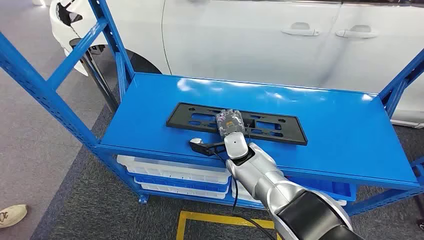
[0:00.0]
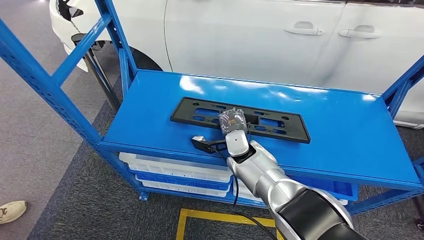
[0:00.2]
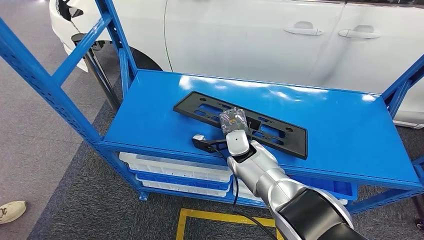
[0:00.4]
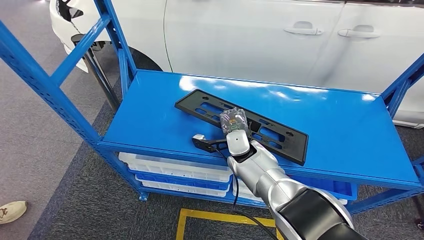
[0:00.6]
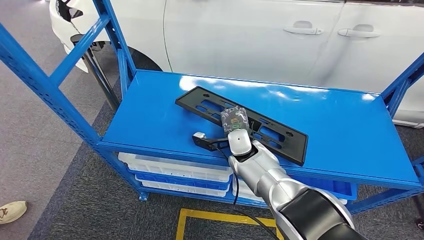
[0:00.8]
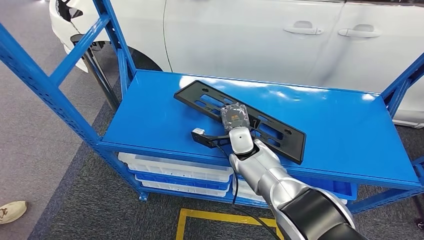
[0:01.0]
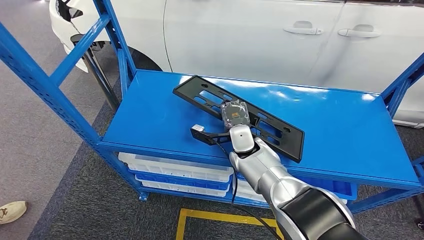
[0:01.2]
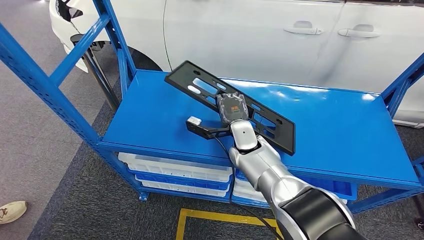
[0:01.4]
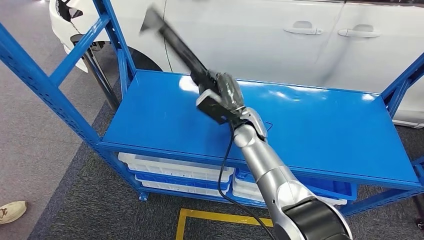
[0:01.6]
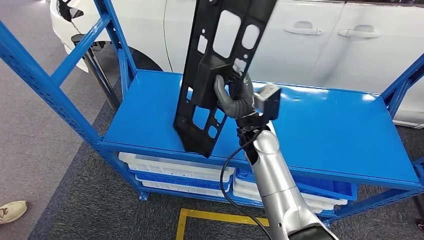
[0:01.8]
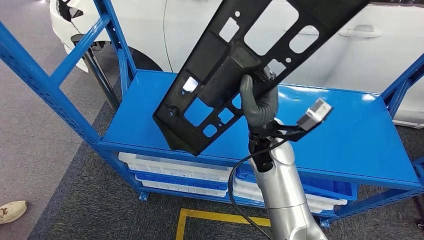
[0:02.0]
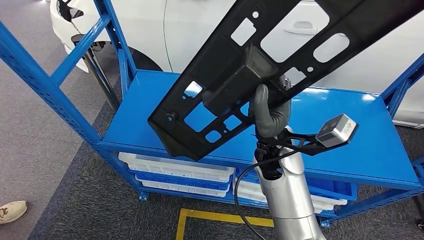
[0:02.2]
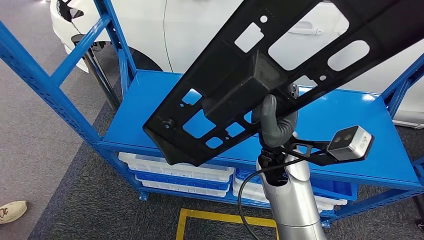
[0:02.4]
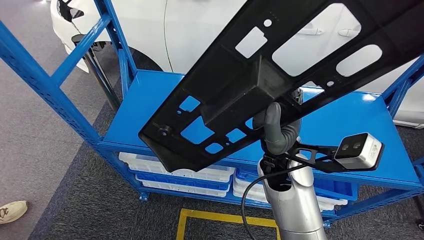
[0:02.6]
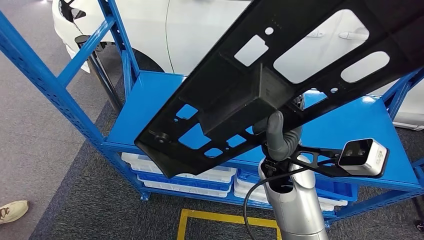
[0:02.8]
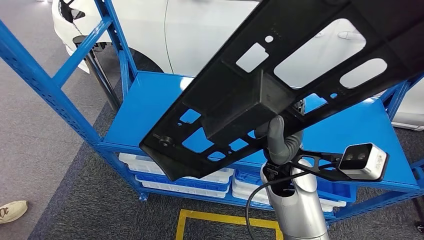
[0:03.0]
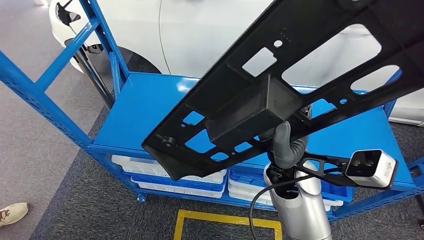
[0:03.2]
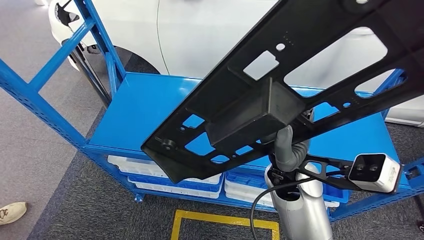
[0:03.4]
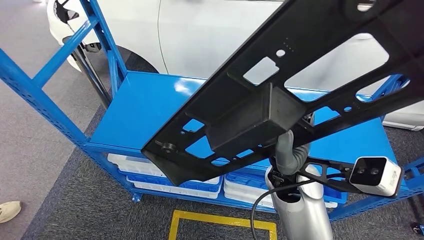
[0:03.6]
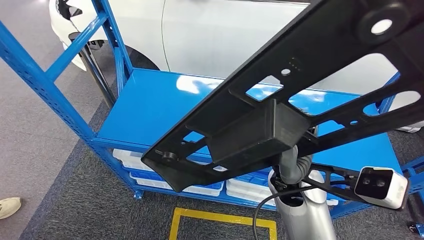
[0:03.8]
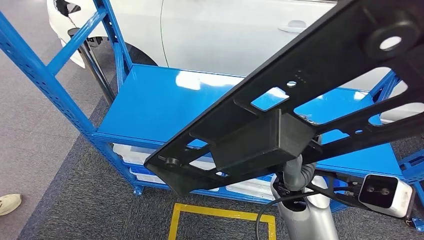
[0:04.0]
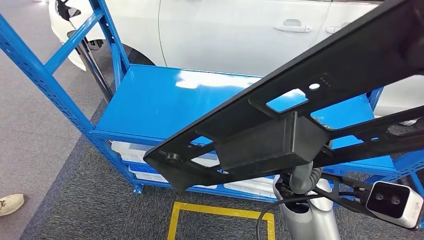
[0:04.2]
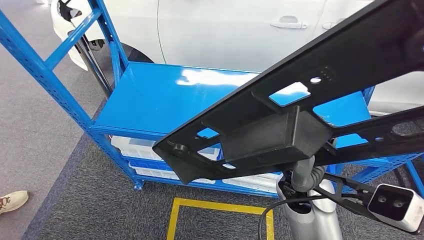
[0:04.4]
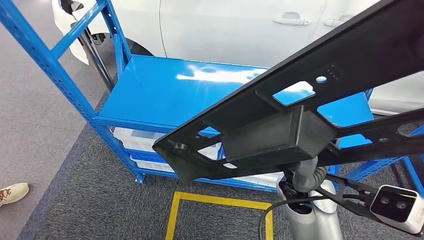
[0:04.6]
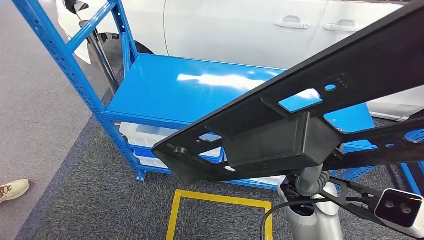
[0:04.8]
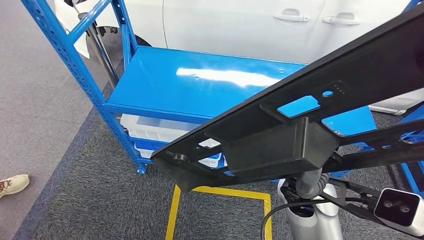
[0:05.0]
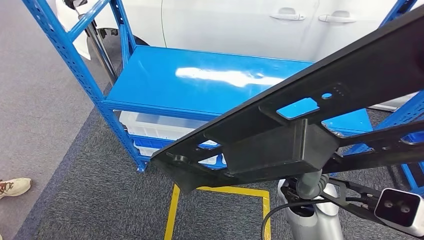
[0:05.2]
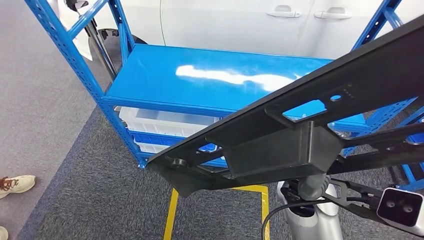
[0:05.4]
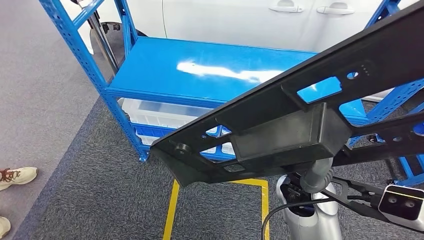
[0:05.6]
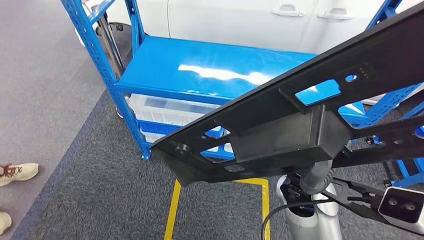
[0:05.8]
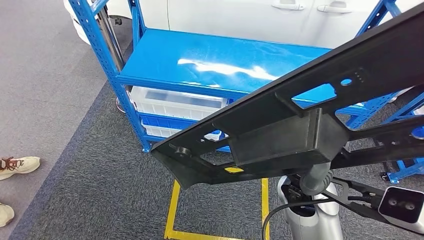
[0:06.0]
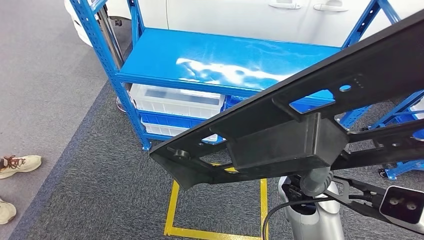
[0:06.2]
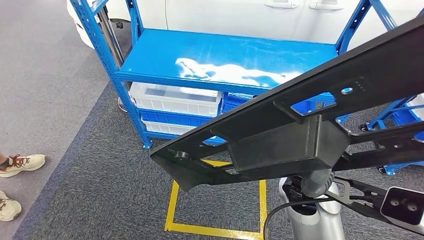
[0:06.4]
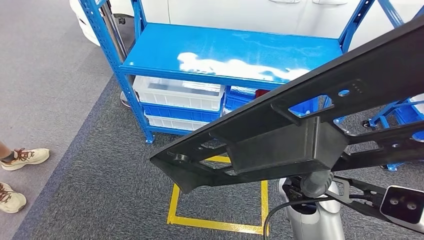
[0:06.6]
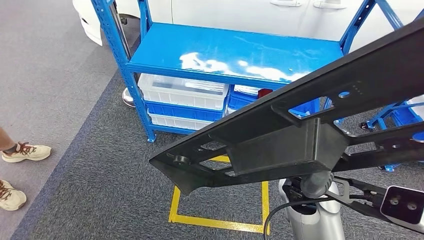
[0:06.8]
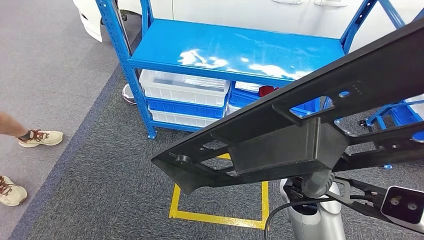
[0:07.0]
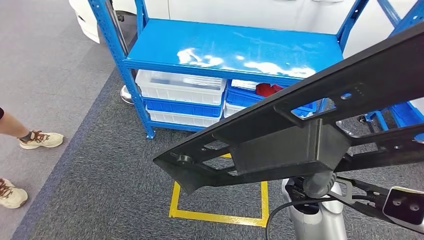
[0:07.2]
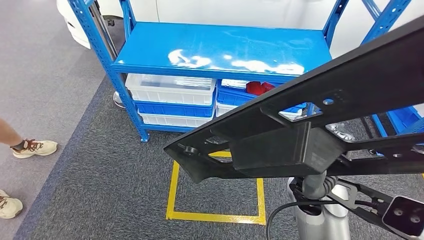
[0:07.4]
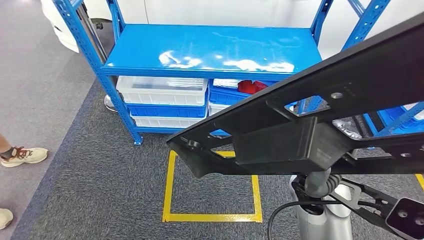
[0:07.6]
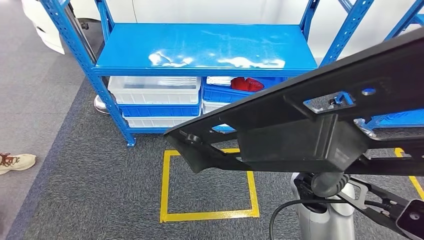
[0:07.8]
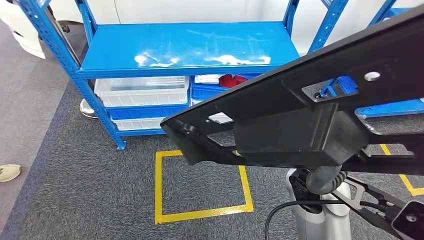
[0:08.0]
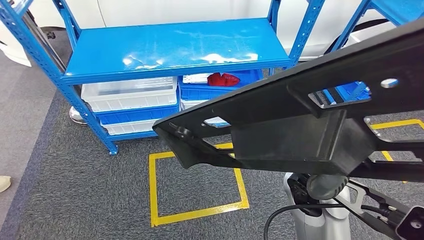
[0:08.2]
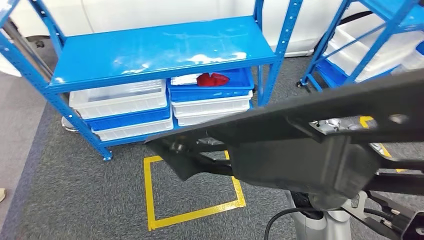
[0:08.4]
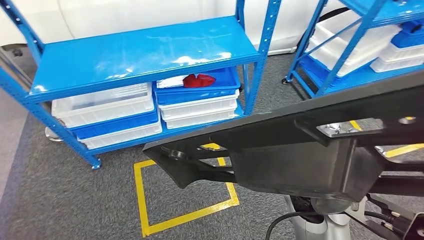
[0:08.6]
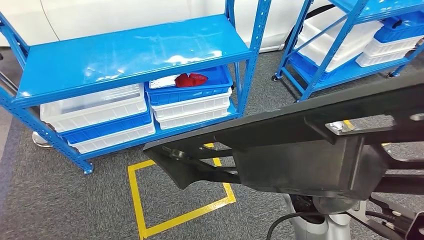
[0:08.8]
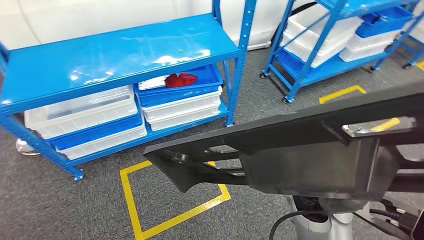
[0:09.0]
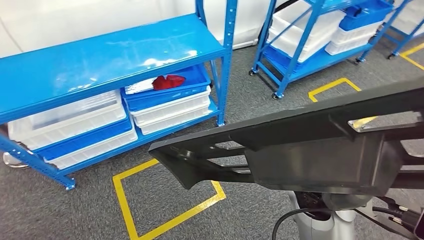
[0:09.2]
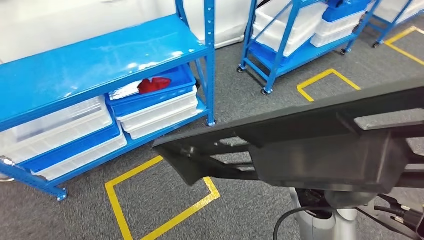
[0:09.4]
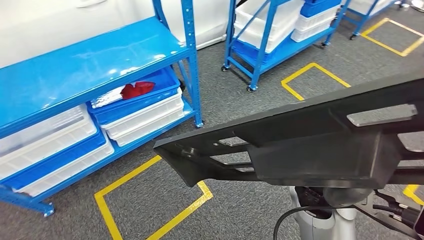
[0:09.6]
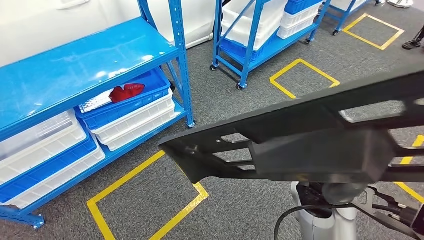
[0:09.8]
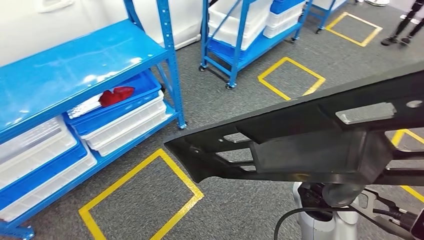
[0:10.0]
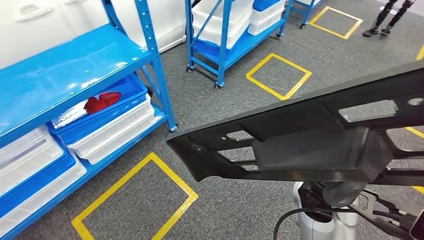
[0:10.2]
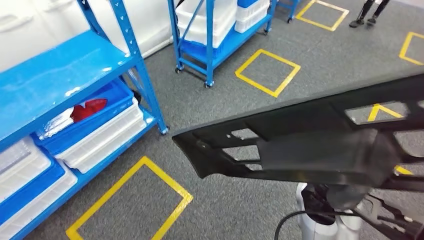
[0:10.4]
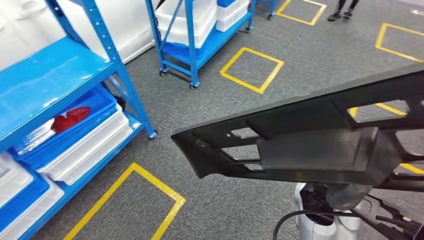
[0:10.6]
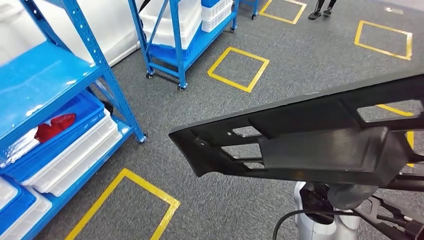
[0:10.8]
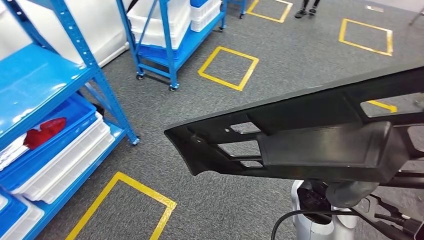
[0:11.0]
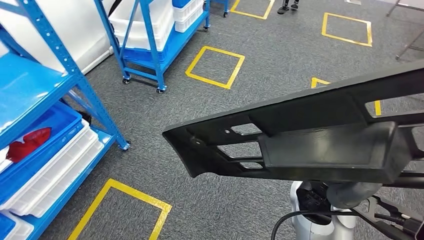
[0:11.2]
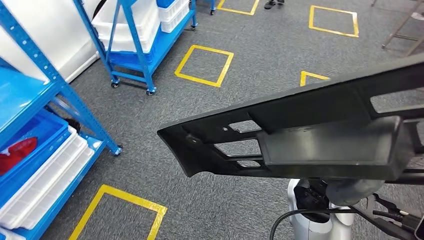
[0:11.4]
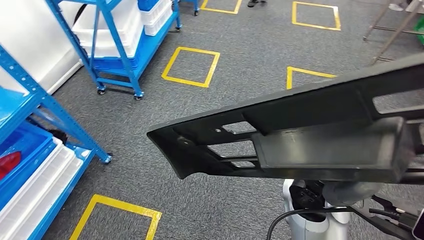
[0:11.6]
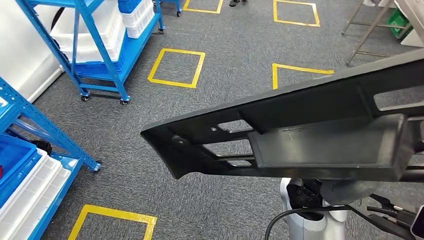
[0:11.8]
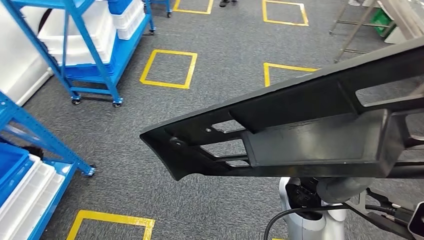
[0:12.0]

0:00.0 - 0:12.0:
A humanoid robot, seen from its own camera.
Step, 0:00.0 - 0:03.2: Pick up the large material from the shelf.

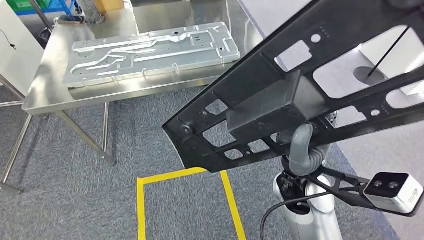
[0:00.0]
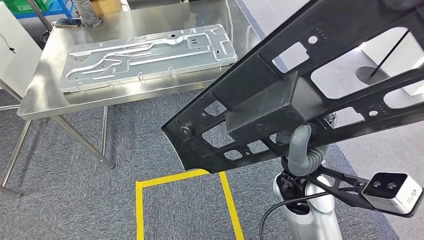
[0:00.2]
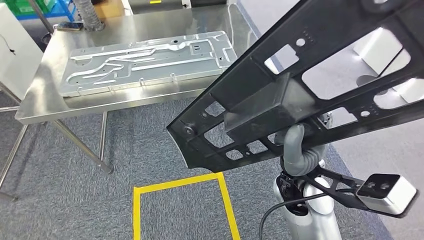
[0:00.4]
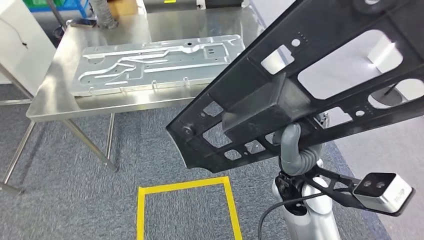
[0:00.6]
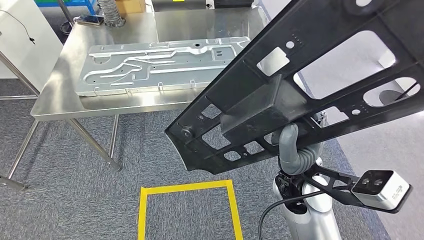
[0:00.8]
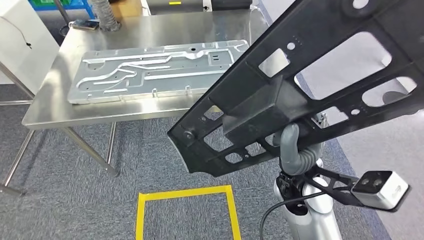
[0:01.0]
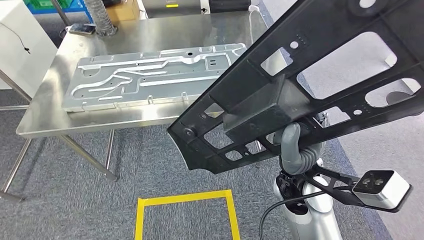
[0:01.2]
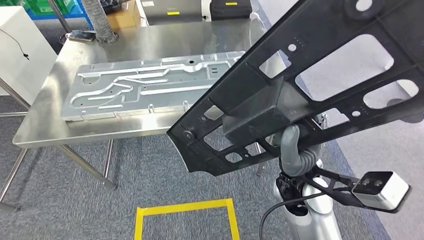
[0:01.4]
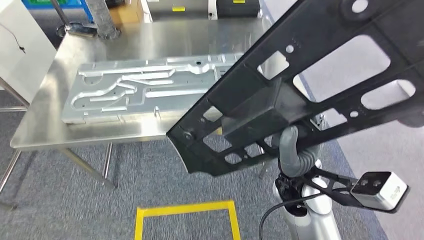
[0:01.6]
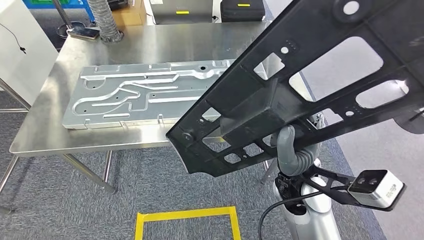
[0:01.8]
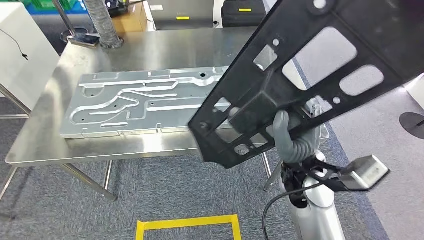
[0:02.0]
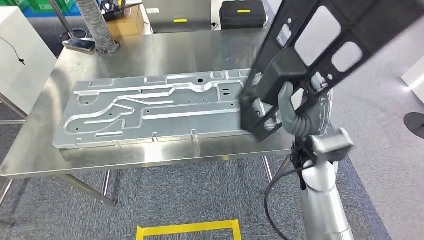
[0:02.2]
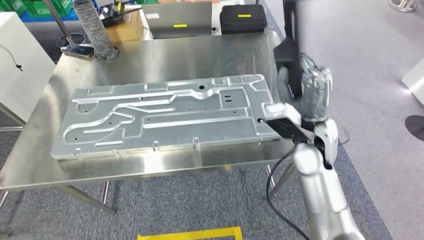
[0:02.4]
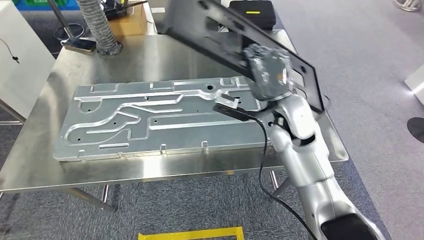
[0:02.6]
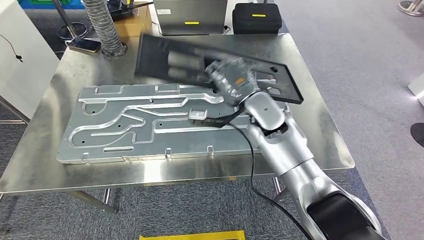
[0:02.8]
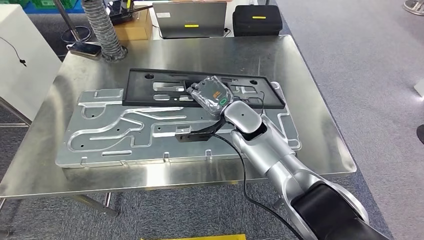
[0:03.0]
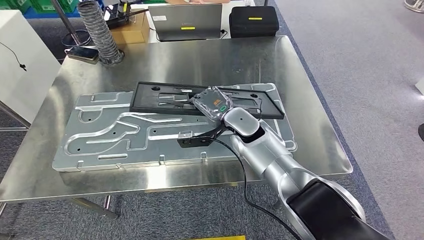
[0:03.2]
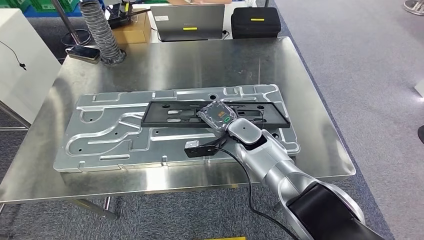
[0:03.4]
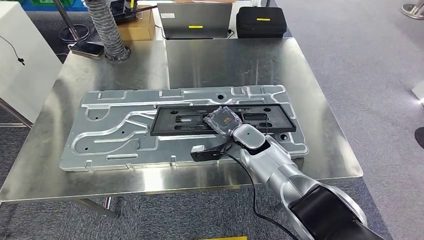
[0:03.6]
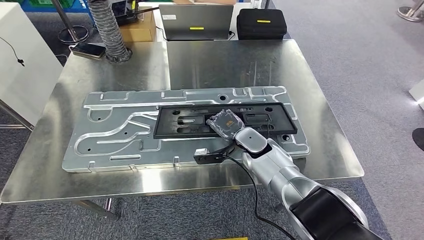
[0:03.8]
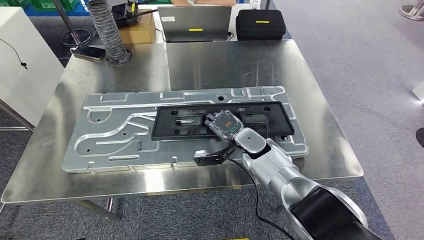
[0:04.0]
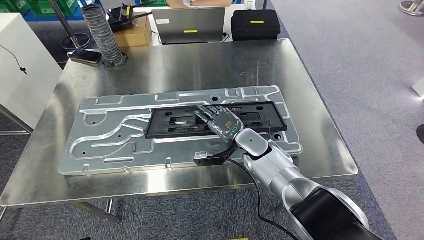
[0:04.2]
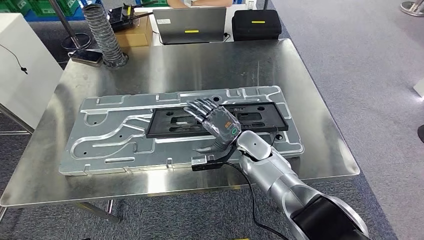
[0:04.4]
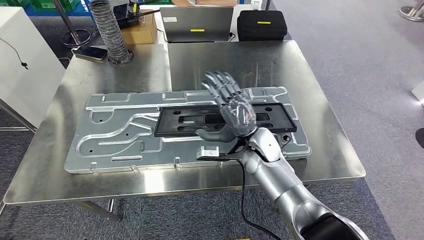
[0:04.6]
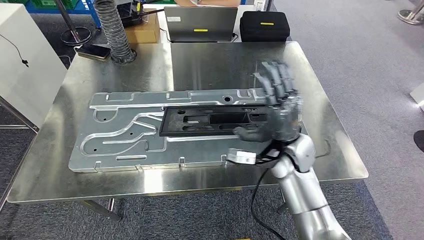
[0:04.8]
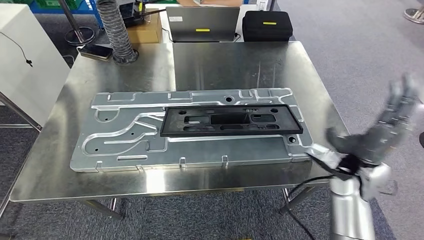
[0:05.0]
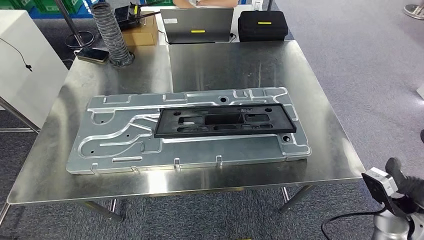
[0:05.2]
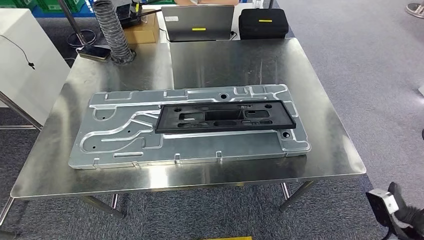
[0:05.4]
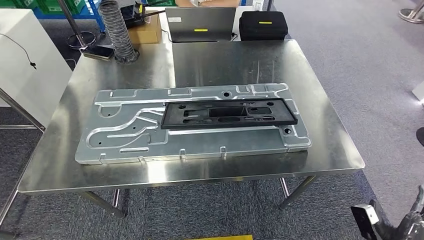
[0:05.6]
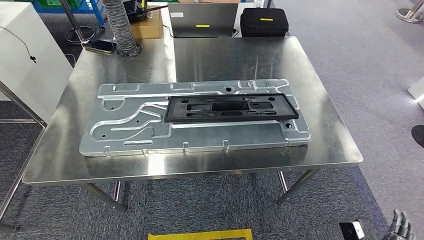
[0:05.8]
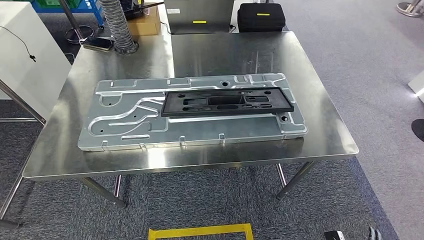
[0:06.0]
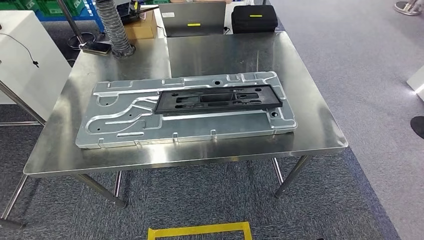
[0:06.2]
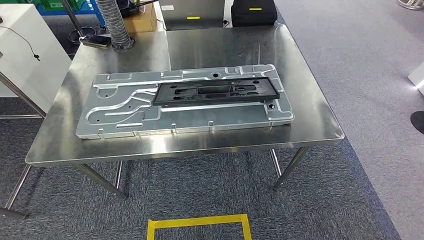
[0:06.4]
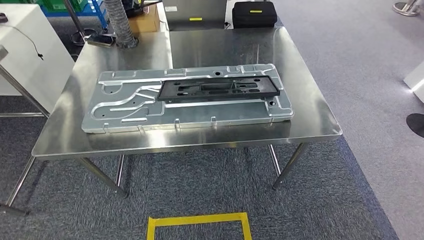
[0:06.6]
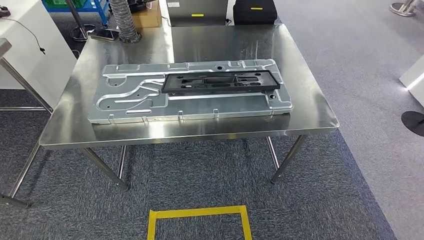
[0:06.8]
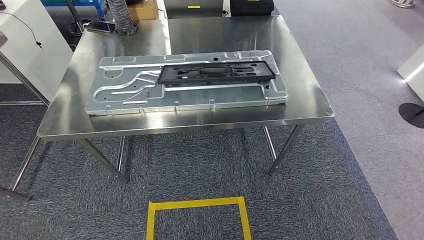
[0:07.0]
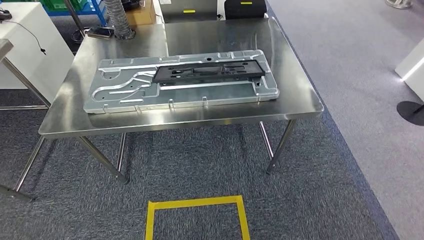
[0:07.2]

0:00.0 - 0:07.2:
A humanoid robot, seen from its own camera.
Step, 0:00.0 - 0:02.6: Move the large material to the front of the workbench.
Step, 0:03.0 - 0:06.0: Insert the large material into the corresponding hole on the workbench.
